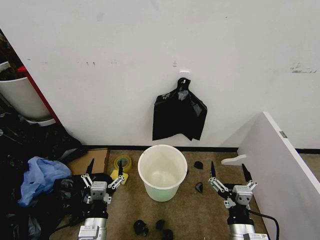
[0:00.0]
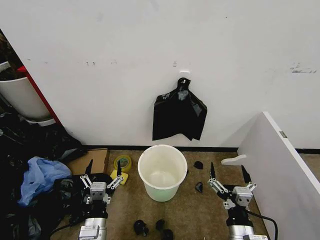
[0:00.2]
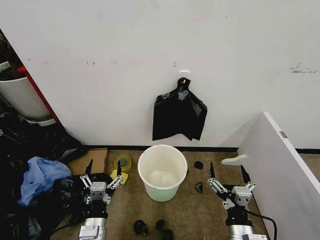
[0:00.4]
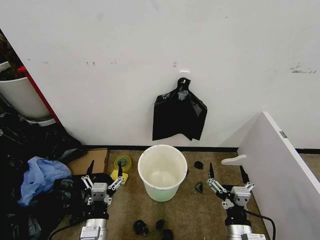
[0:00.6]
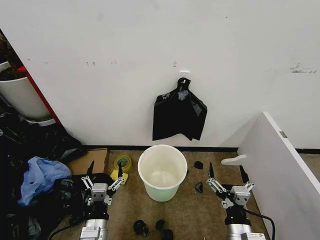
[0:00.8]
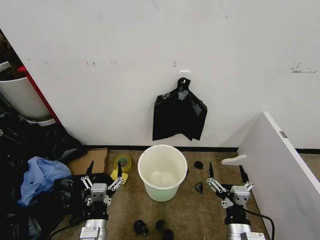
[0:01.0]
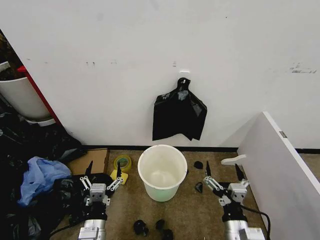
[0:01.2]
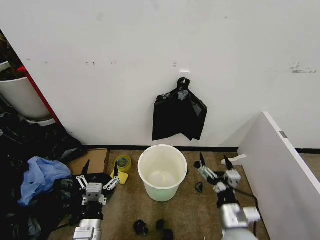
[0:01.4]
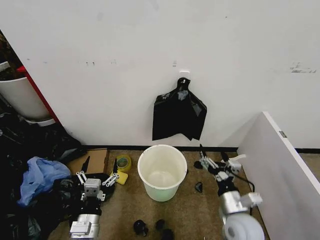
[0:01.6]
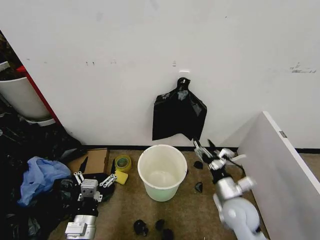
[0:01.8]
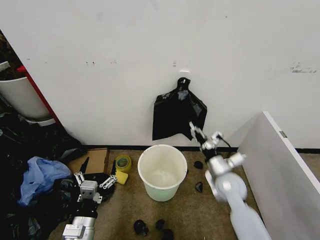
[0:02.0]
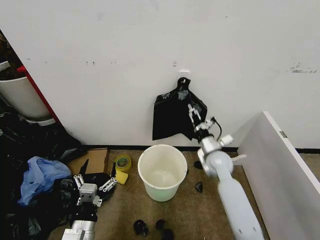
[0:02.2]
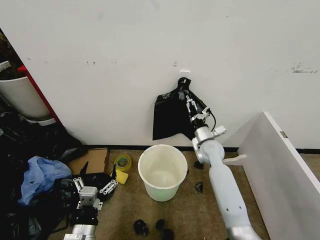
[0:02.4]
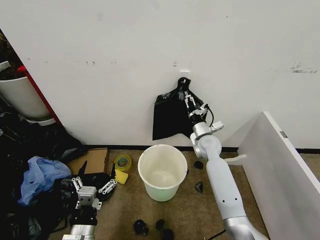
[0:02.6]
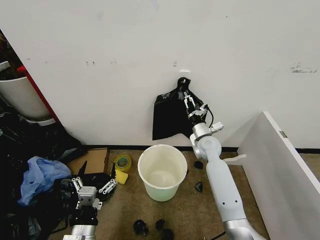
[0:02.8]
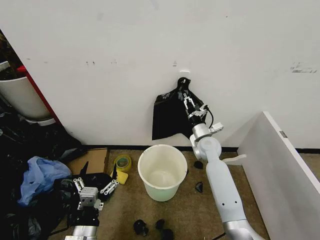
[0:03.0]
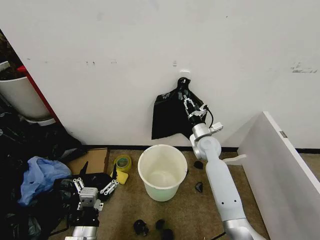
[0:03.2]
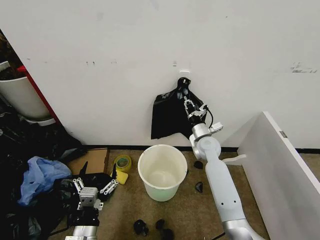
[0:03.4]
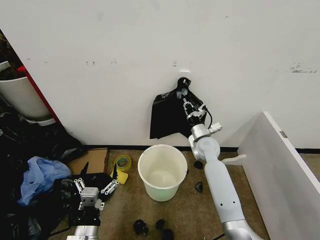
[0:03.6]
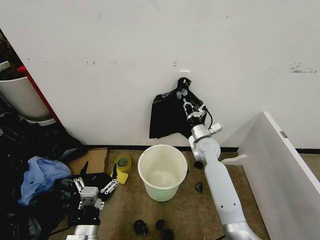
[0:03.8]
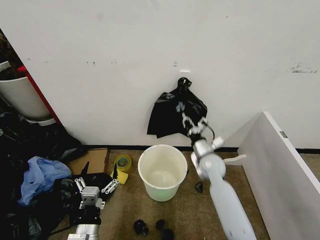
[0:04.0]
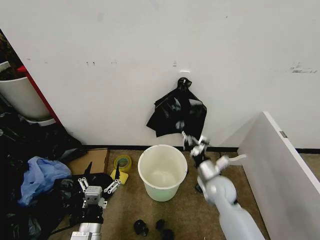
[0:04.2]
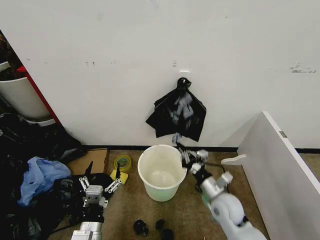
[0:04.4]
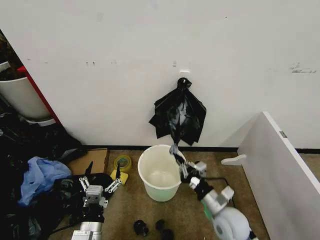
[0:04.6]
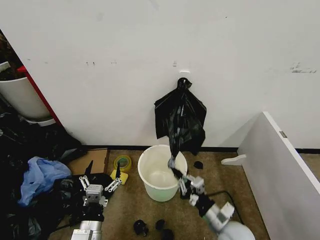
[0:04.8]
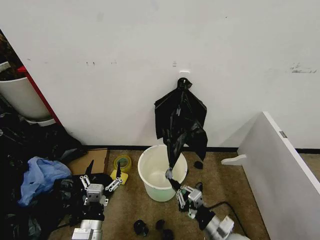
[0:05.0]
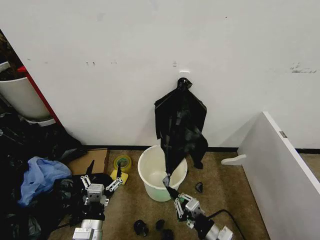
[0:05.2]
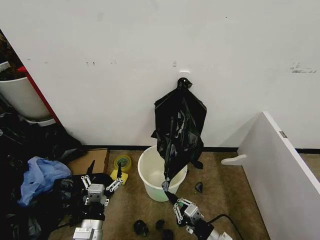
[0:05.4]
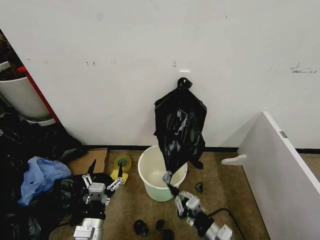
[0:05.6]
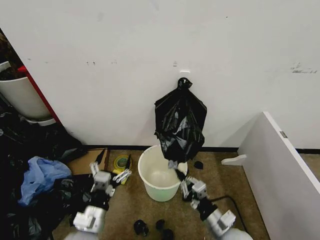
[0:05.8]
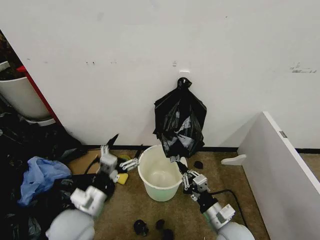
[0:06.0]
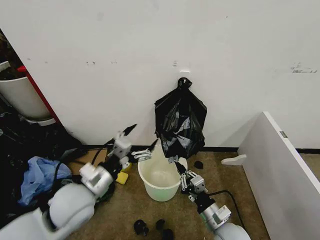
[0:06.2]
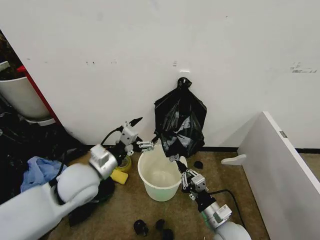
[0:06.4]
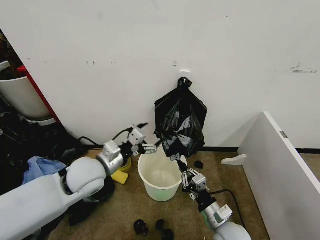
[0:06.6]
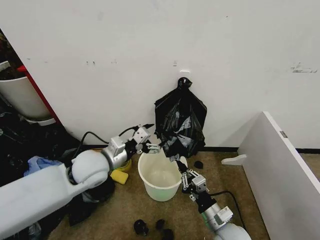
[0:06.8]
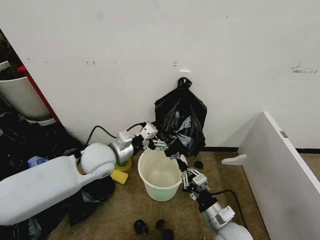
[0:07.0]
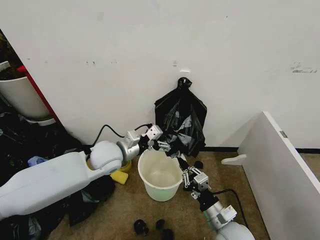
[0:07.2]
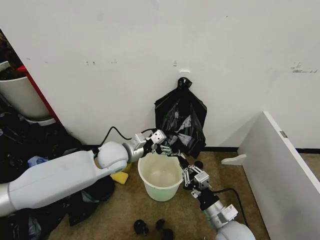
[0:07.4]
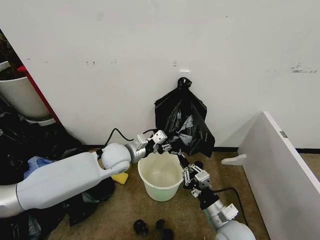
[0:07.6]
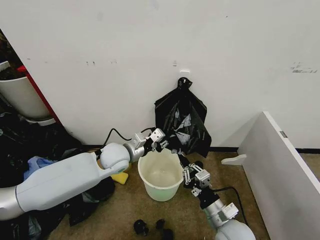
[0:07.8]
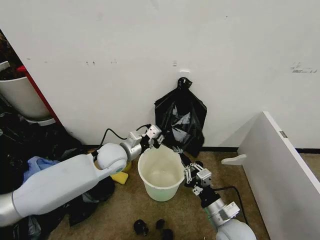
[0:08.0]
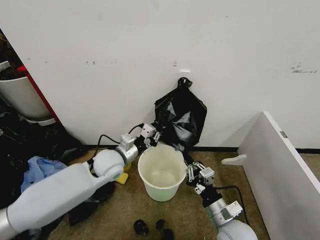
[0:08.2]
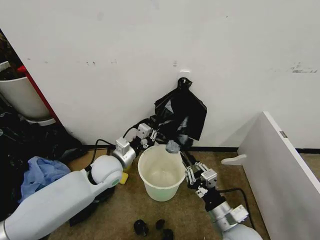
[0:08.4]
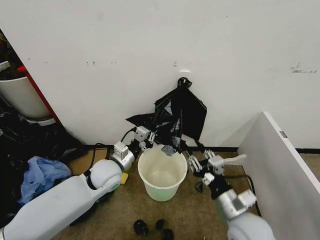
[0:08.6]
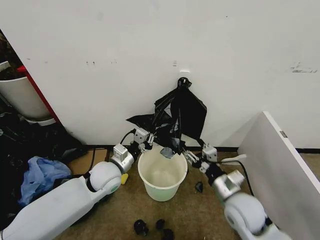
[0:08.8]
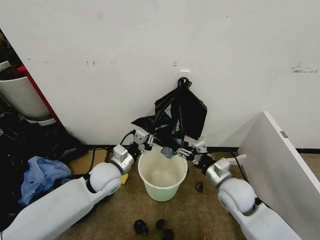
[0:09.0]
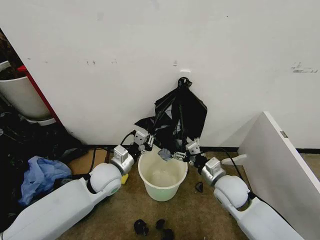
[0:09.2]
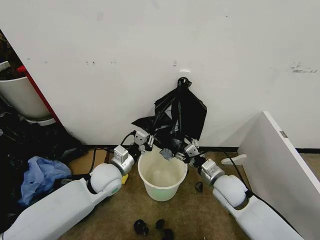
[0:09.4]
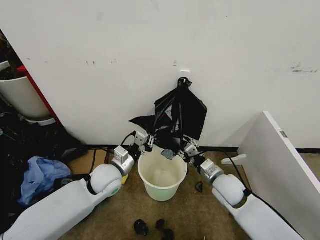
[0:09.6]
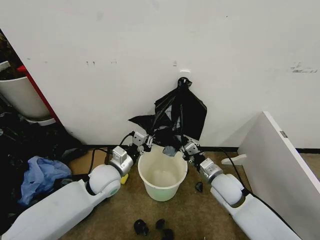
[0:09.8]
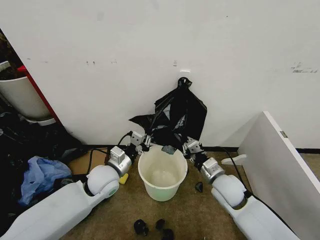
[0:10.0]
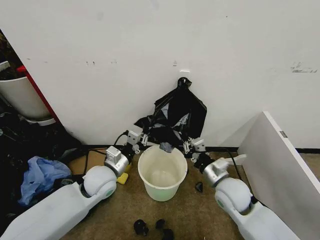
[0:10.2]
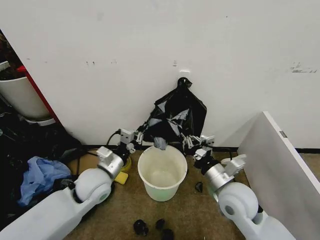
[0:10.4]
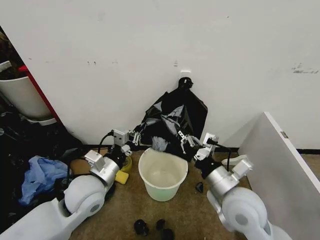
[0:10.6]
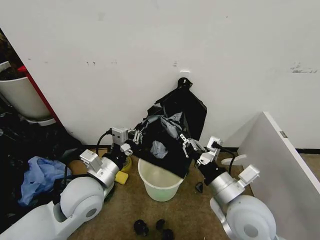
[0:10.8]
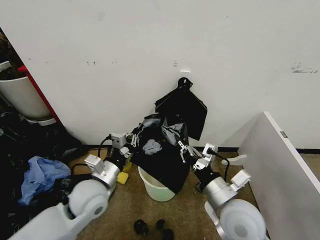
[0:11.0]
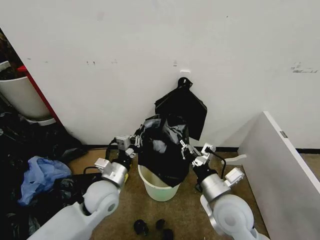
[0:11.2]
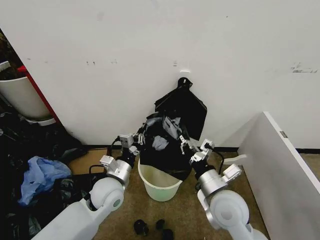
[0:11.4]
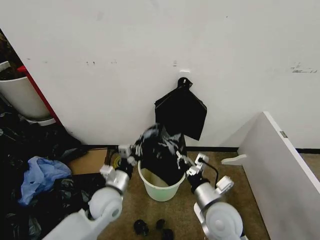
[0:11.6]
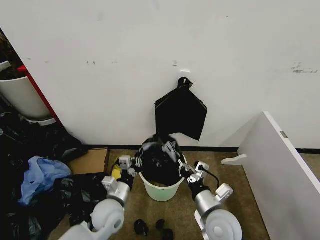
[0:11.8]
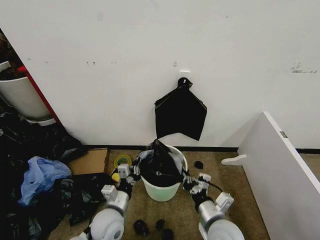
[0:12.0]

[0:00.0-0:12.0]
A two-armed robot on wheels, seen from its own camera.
Task of the whole recording: Place the garbage bag over the trash bin.
0:01.6 to 0:03.0: The right gripper moves forward, approximately 25 cm, and closes.
0:03.0 to 0:04.4: The right gripper travels backward by some 20 cm, and closes up.
0:04.4 to 0:06.0: The right gripper moves backward, some 10 cm. The left gripper shifts roughly 10 cm upward and forward.
0:06.0 to 0:07.6: The left gripper heads forward, covering some 20 cm, and closes.
0:07.6 to 0:09.0: The right gripper goes about 10 cm forward and upward, and opens its fingers; the left gripper moves backward, about 5 cm, and closes up.
0:09.0 to 0:10.4: The right gripper moves roughly 5 cm, and closes up; the left gripper ends up about 5 cm from where it was.
0:10.4 to 0:12.0: Both grippers travel together downward and backward, about 15 cm.

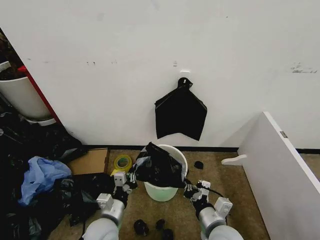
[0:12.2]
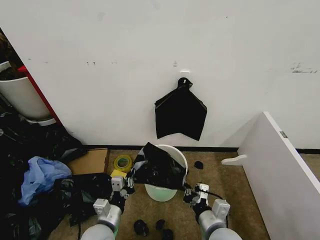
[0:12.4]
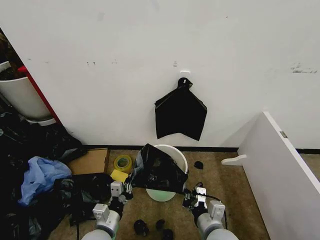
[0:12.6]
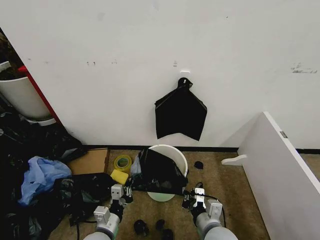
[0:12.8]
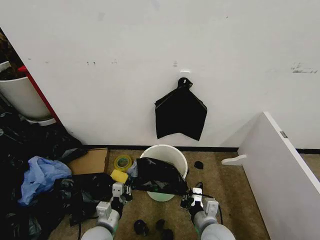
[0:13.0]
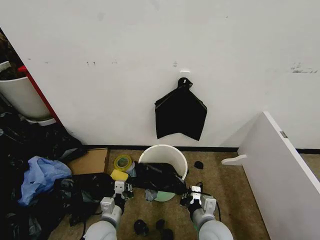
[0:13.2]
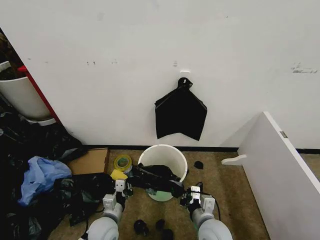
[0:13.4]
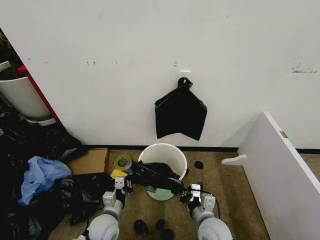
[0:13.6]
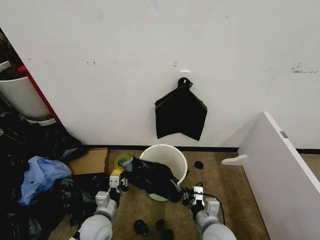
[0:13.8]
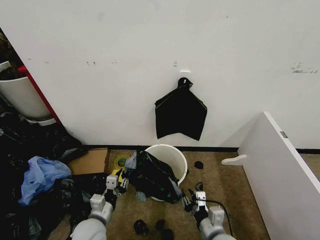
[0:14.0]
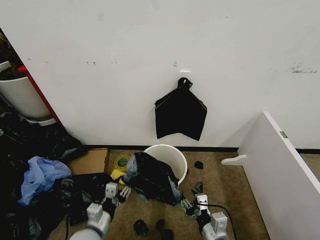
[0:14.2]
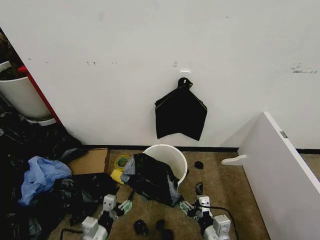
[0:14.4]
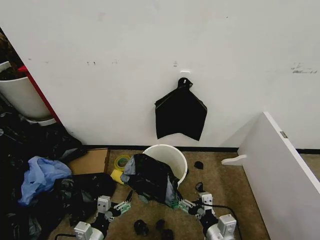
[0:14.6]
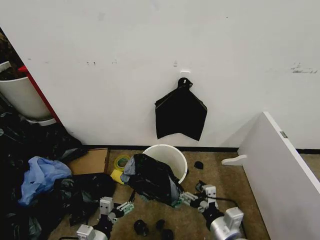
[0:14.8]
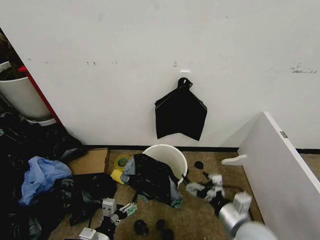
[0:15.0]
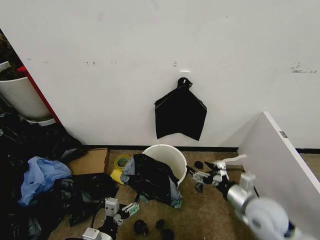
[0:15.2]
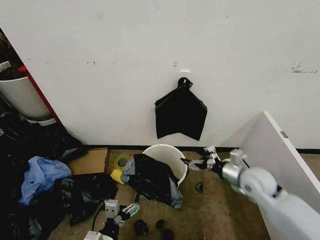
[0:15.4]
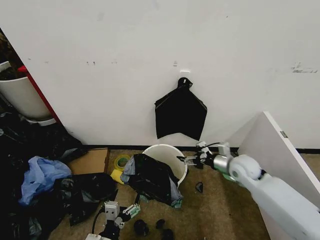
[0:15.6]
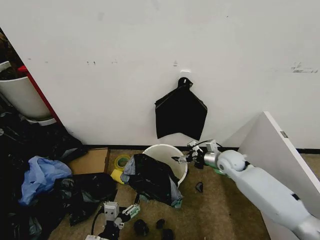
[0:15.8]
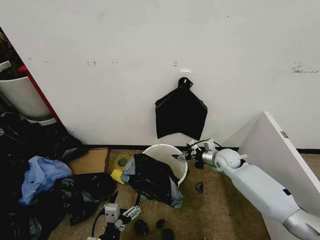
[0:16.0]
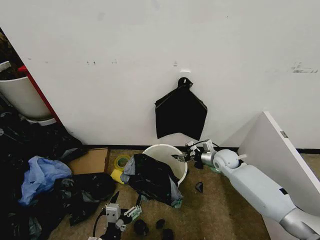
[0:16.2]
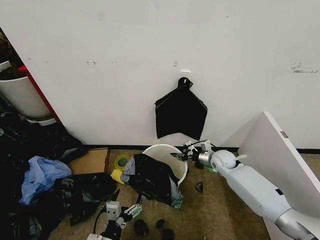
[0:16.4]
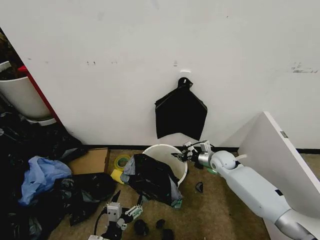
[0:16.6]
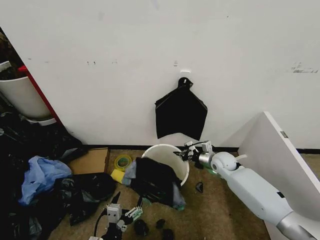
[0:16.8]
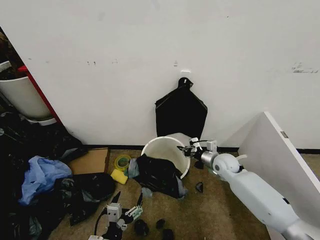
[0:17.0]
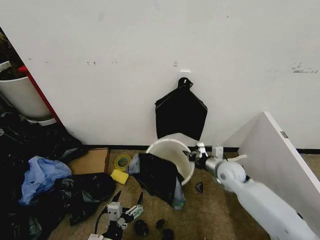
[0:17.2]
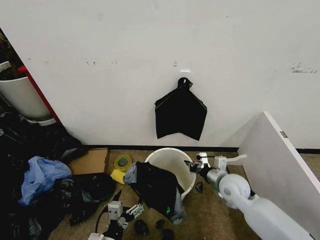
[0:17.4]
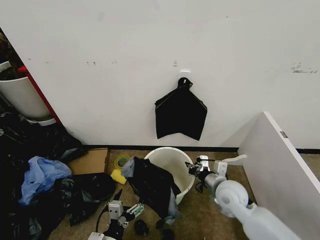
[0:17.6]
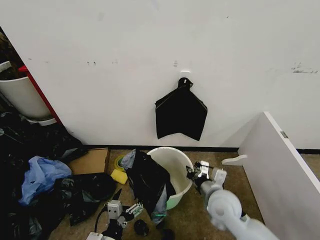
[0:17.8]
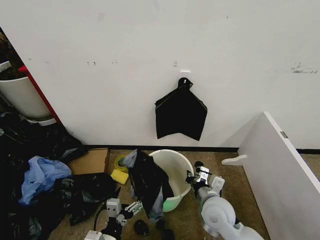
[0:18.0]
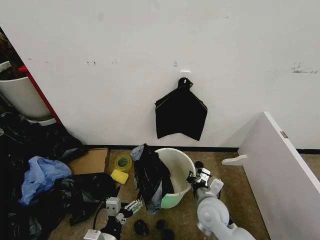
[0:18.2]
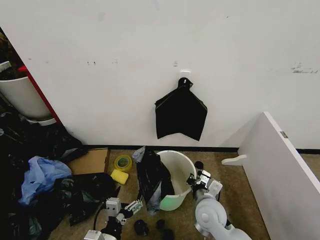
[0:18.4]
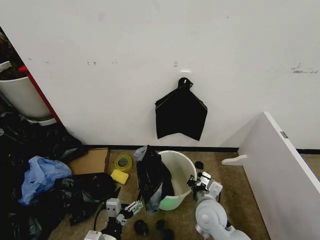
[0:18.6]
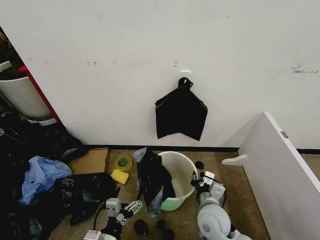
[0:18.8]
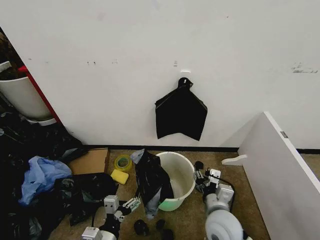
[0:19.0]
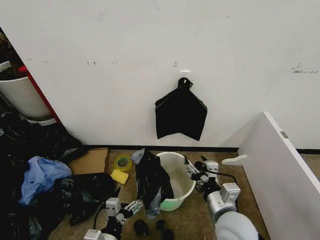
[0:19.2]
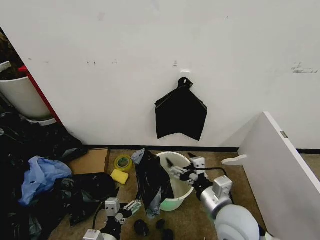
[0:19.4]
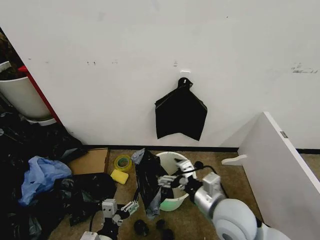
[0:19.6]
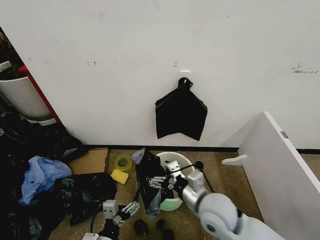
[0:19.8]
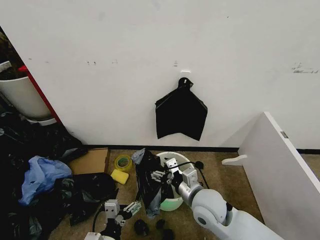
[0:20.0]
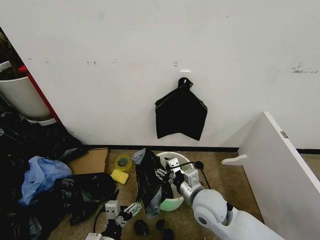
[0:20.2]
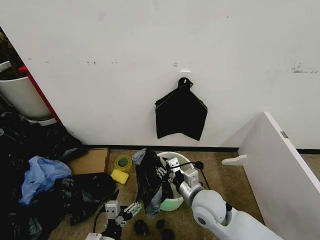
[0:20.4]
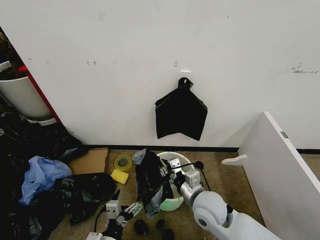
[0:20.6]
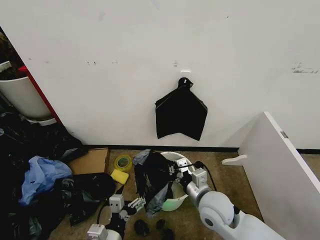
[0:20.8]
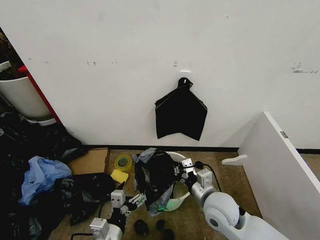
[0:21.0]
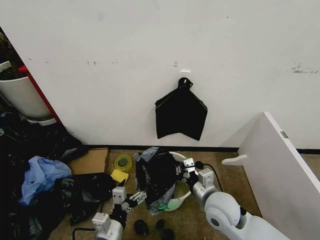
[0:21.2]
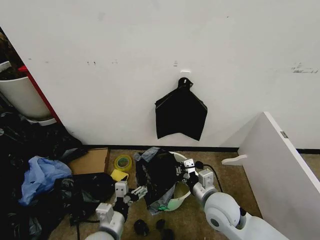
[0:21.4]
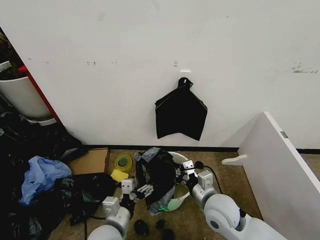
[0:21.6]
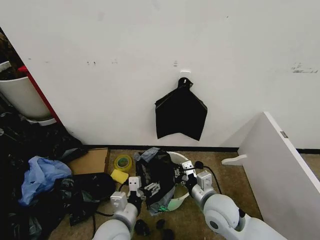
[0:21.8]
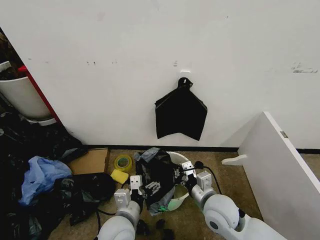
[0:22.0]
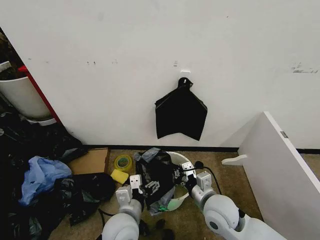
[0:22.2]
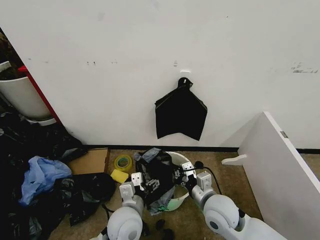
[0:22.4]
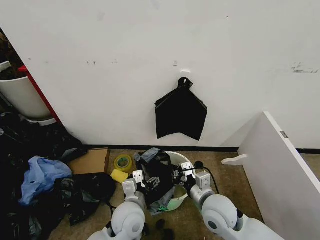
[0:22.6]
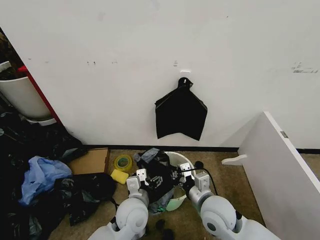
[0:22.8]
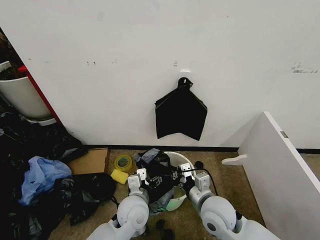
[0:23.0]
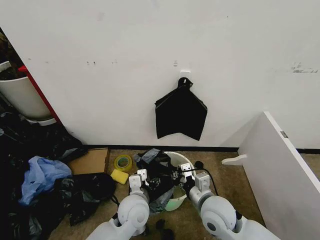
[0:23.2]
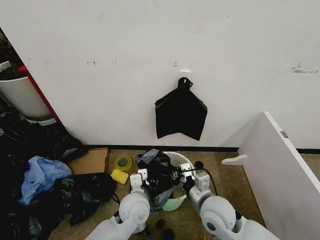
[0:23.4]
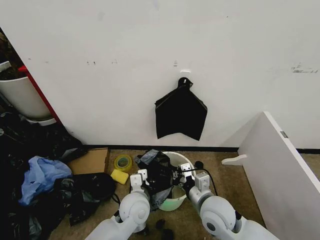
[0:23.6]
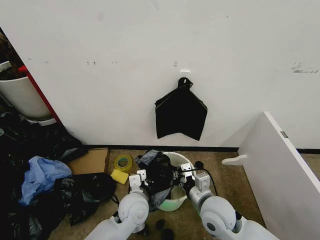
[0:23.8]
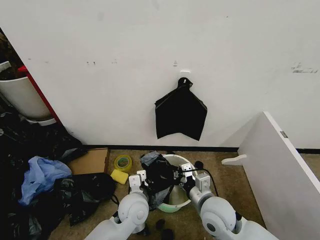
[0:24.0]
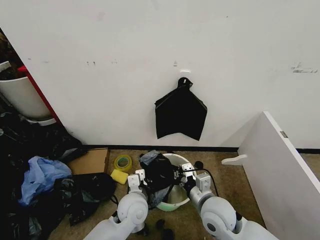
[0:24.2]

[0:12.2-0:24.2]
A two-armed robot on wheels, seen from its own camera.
Task of the whole recording: Place the garbage bag over the trash bin.
0:12.2 to 0:13.8: The left gripper moves about 5 cm.
0:13.8 to 0:15.2: The left gripper heads backward, covering about 10 cm, and opens up, while the right gripper moves to the right, upward and forward, about 15 cm, and opens.
0:15.2 to 0:16.6: The right gripper moves forward, approximately 20 cm, and closes.
0:16.6 to 0:18.2: The right gripper is displaced backward and to the left by approximately 25 cm.
0:18.2 to 0:19.8: The right gripper travels upward by roughly 10 cm, and opens up.
0:19.8 to 0:21.2: The right gripper closes its fingers.
0:21.2 to 0:22.6: The left gripper is displaced forward and to the right by some 10 cm.
0:22.6 to 0:24.2: The left gripper changes place by some 5 cm, and closes.
